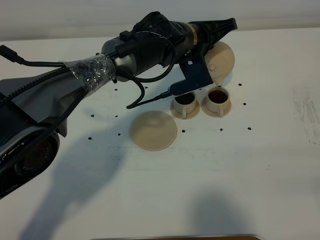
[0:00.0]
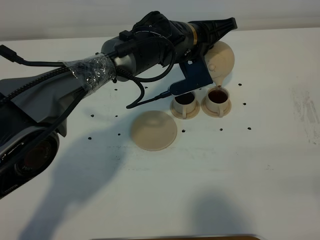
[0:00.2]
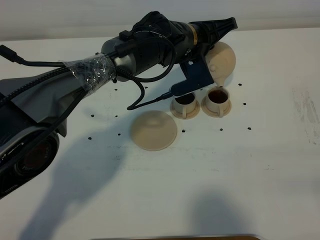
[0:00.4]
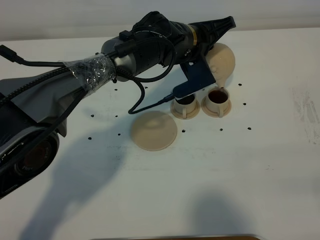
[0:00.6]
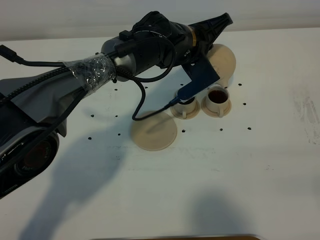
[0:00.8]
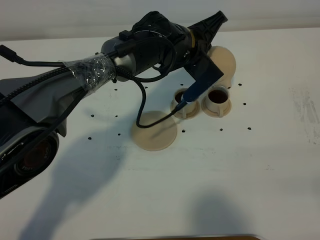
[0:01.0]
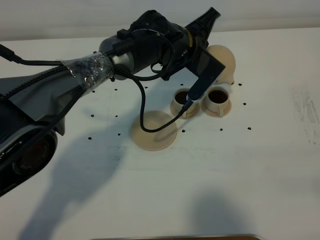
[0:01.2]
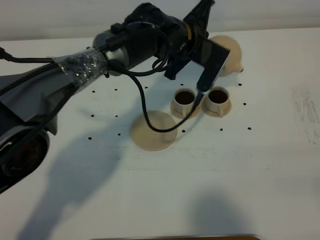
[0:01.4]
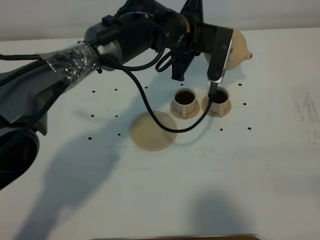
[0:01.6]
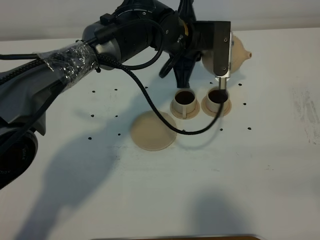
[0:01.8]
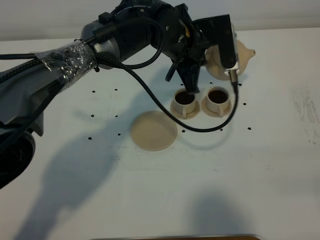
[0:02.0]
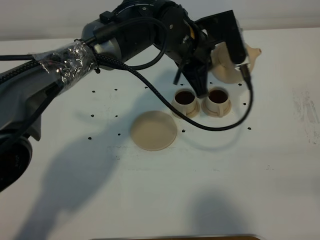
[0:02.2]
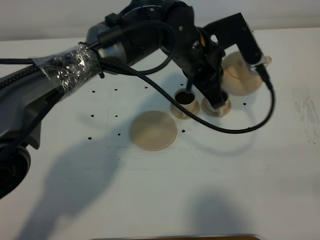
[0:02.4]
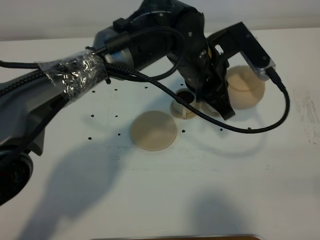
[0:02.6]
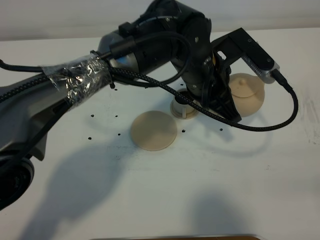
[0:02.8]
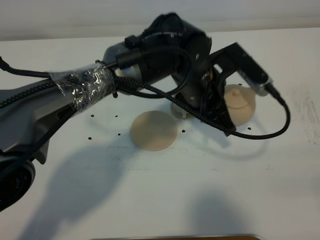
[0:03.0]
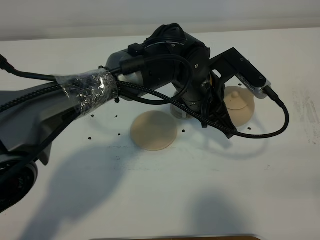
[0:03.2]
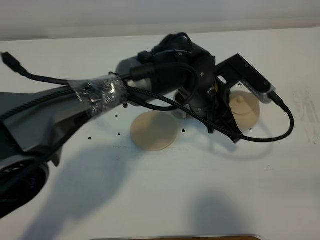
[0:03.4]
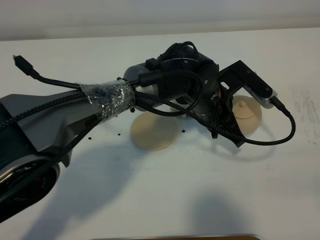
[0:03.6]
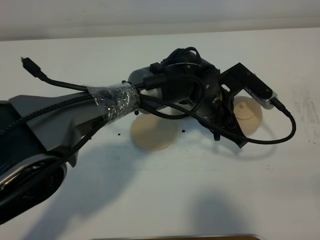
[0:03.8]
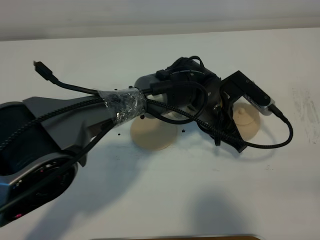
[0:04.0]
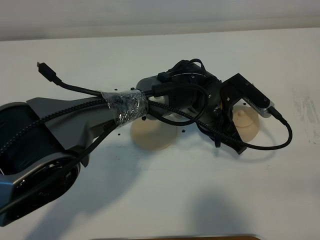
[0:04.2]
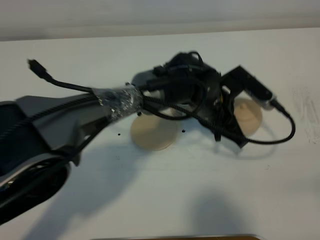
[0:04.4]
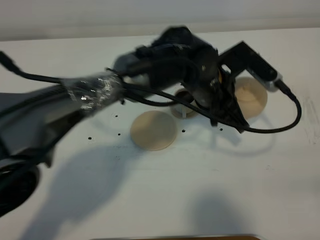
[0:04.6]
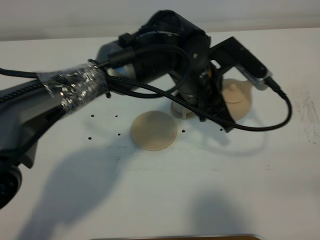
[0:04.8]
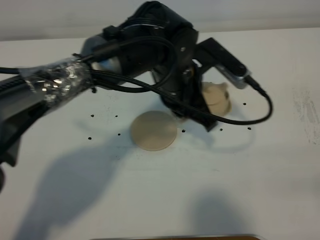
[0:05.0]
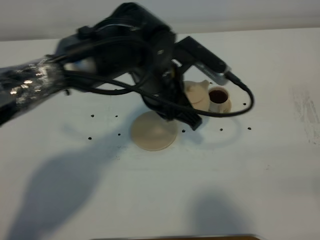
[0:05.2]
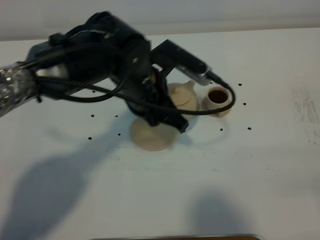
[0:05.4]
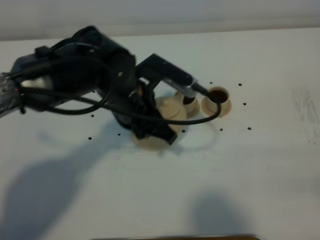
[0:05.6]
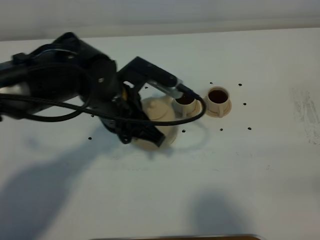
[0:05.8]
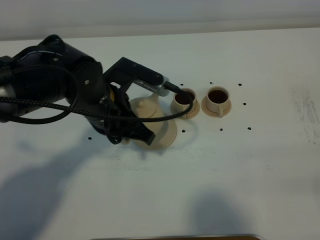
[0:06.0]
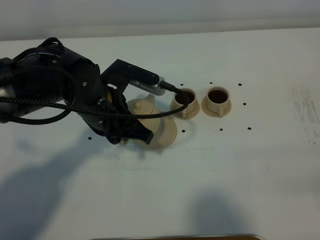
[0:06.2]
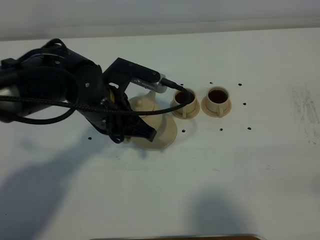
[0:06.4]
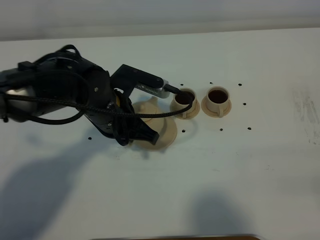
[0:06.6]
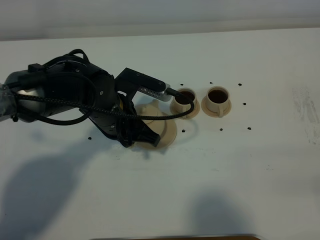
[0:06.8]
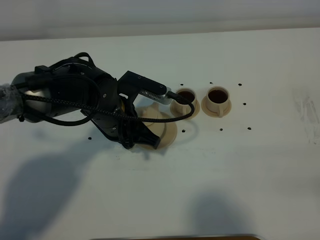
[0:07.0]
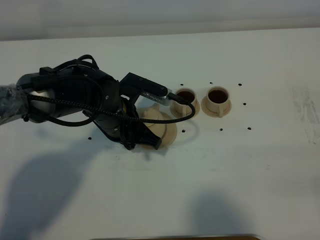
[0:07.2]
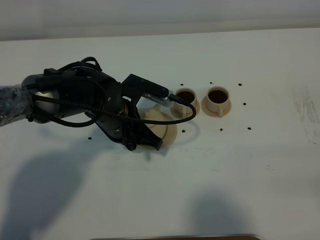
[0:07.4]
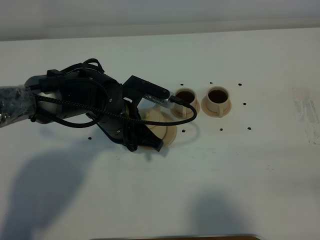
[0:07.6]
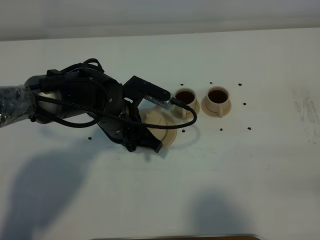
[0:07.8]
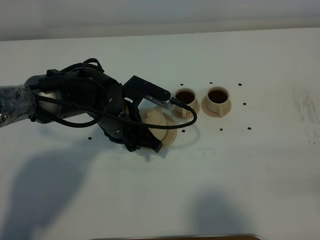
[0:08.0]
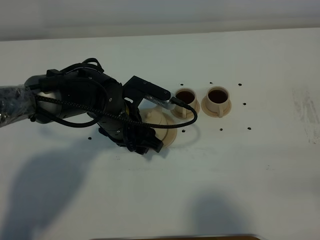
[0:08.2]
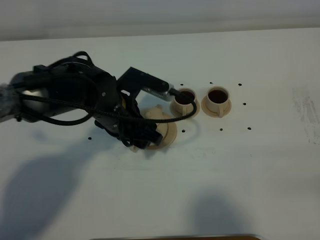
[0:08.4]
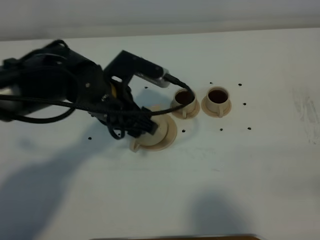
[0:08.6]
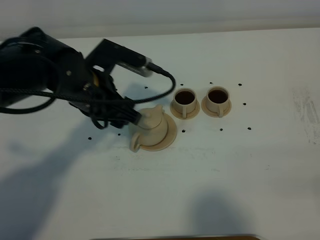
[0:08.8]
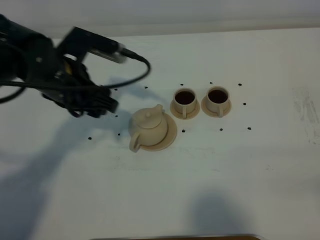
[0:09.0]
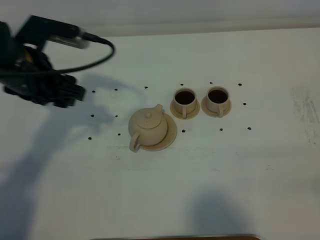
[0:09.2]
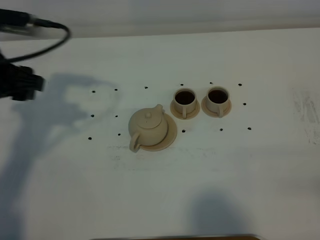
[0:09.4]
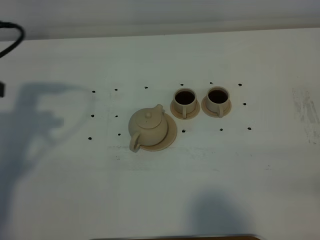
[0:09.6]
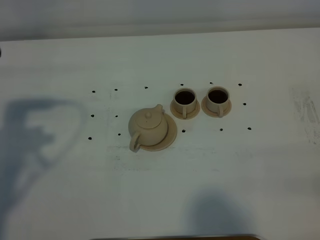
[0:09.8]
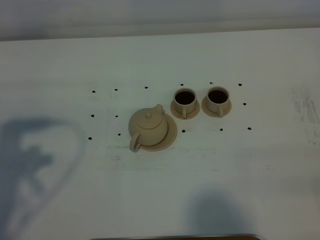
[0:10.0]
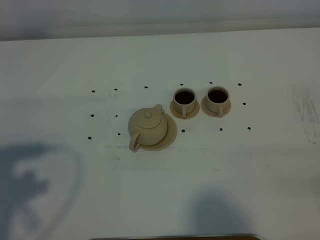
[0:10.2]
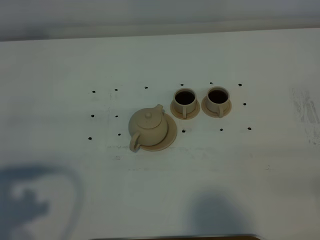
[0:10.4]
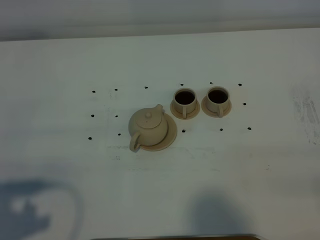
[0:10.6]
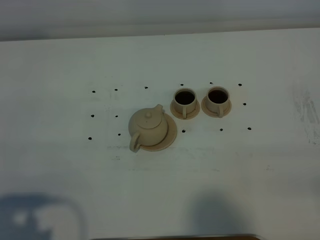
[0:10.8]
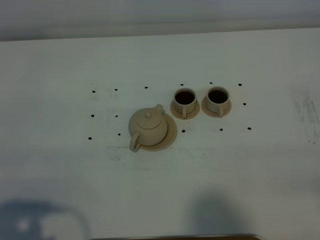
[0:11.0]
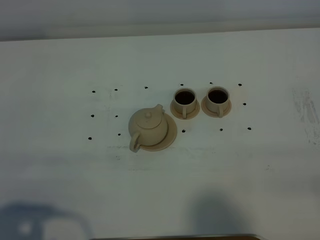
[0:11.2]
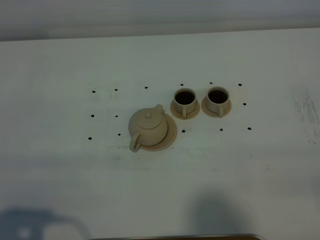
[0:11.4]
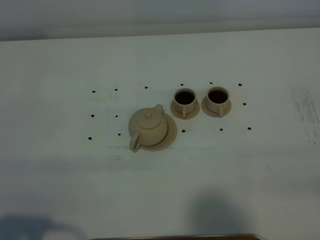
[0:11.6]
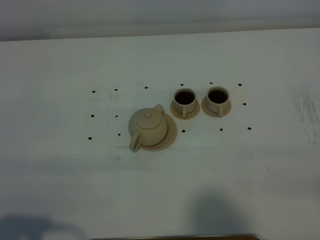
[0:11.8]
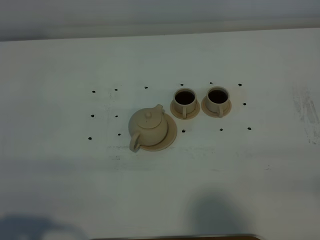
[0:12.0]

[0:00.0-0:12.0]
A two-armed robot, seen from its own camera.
Task of the whole recording: grasp the brown teapot and pour the tea into the two brown teacups one by one, put the brown teapot back in its original place.
0:01.6 to 0:03.0: The left gripper travels backward by some 10 cm.
0:04.4 to 0:06.0: The left gripper heads to the left, covering about 15 cm.
0:06.0 to 0:07.6: The left gripper shifts approximately 5 cm downward.
0:07.6 to 0:09.0: The left gripper moves upward and to the left, about 15 cm, and opens up.
0:09.0 to 0:10.4: The left gripper is displaced backward and to the left by about 30 cm.
0:10.4 to 0:12.0: The left gripper travels backward by some 5 cm.

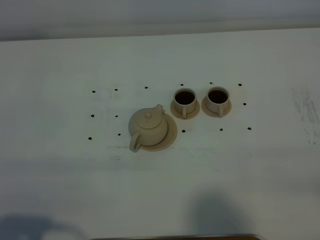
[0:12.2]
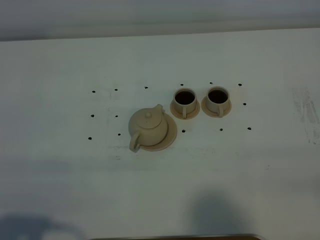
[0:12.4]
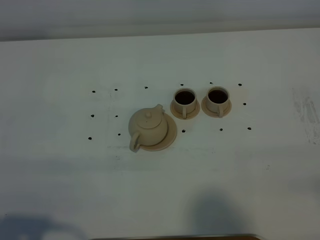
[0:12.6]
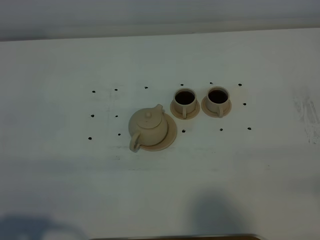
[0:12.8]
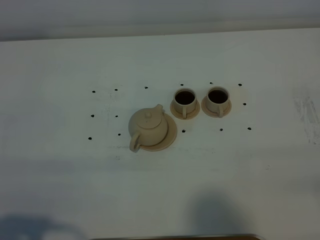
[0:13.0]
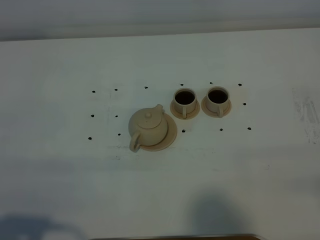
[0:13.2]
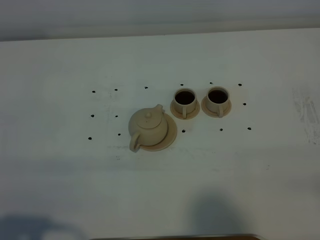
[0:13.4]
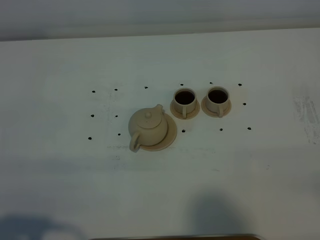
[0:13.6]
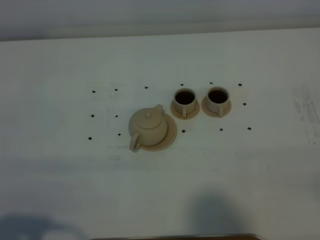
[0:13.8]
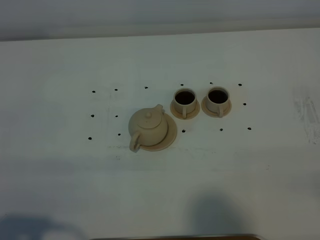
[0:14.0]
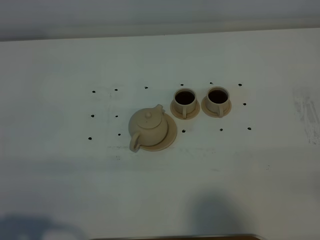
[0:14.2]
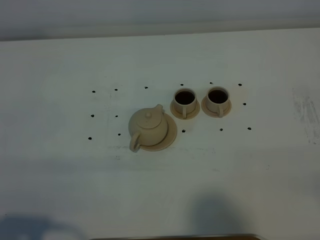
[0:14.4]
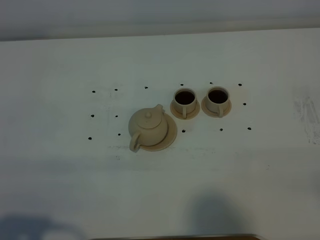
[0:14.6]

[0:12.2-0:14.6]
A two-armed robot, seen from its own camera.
Task of the whole recording: grasp the brown teapot and pour the tea into the two brown teacups one by one, put the brown teapot back in its original place.
0:12.2 to 0:13.4: Both grippers stay put.
0:13.4 to 0:14.6: The two grippers keep their place.

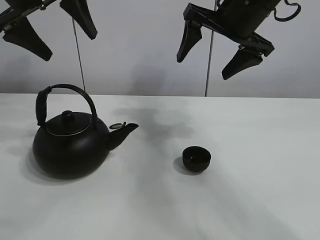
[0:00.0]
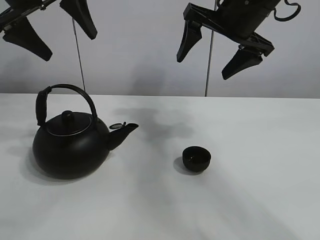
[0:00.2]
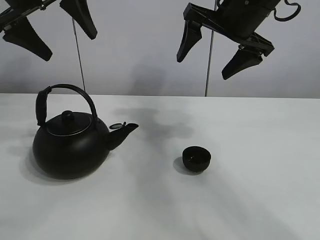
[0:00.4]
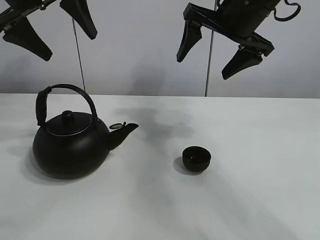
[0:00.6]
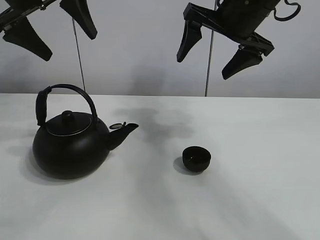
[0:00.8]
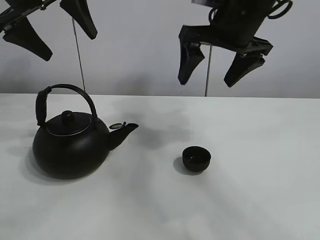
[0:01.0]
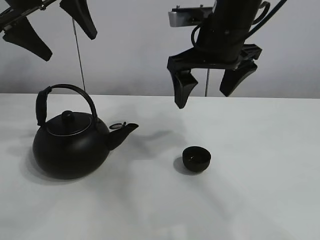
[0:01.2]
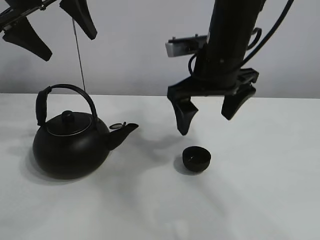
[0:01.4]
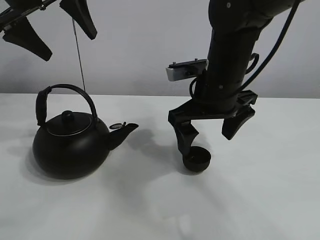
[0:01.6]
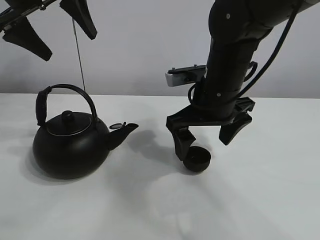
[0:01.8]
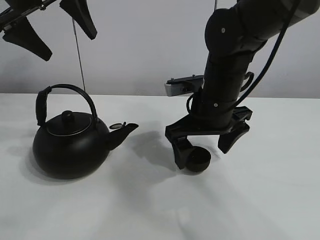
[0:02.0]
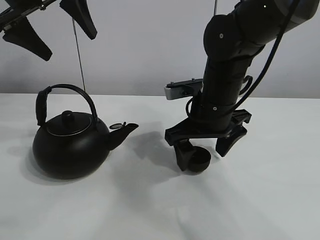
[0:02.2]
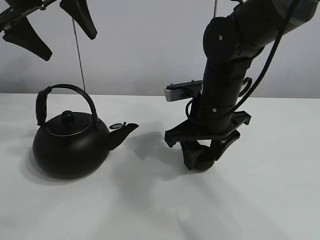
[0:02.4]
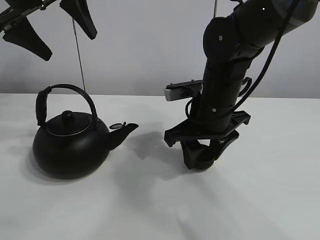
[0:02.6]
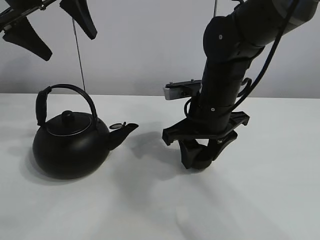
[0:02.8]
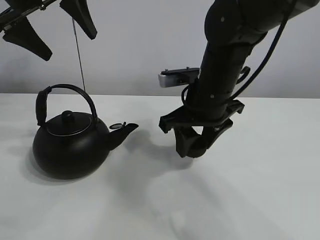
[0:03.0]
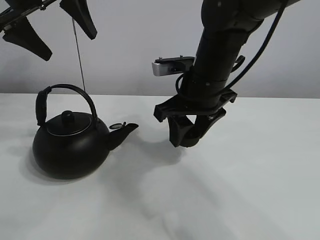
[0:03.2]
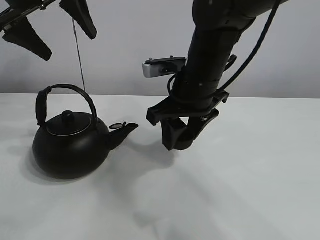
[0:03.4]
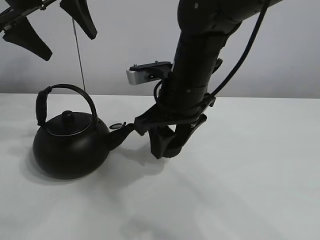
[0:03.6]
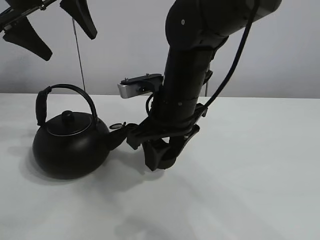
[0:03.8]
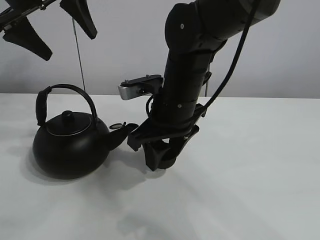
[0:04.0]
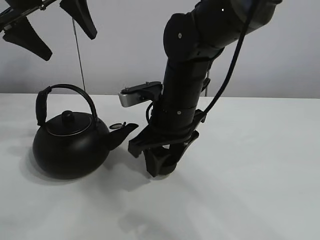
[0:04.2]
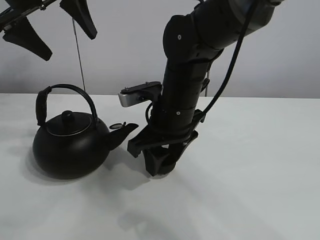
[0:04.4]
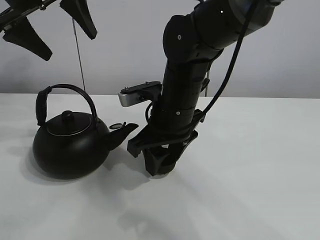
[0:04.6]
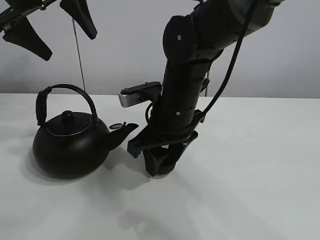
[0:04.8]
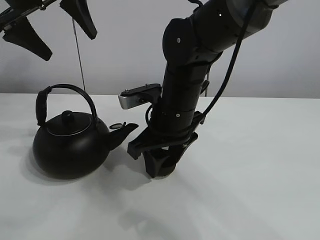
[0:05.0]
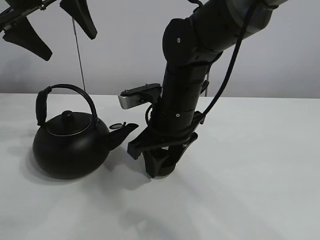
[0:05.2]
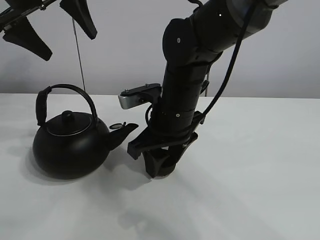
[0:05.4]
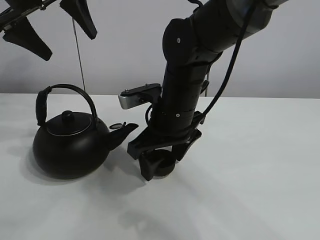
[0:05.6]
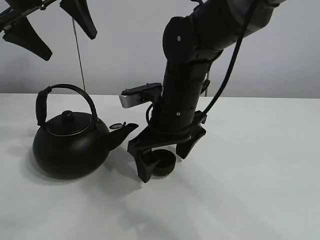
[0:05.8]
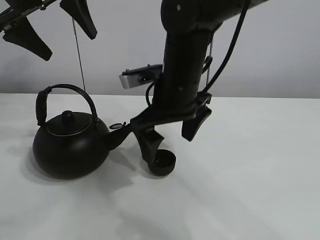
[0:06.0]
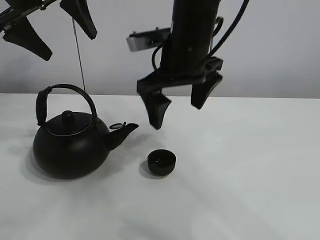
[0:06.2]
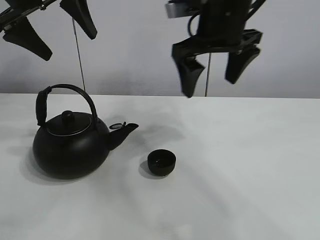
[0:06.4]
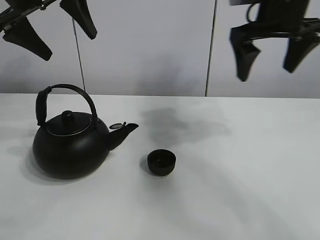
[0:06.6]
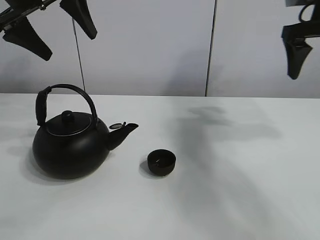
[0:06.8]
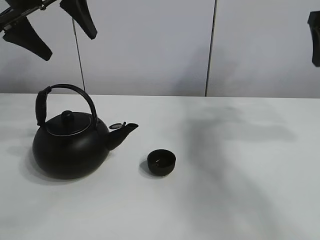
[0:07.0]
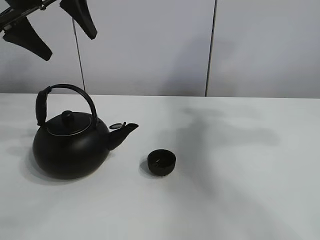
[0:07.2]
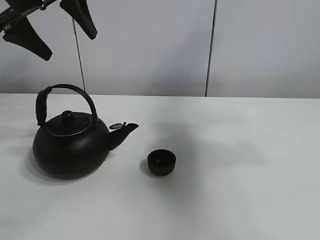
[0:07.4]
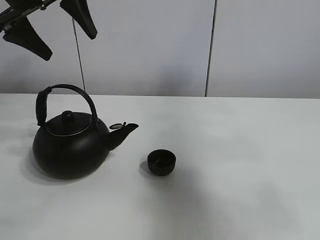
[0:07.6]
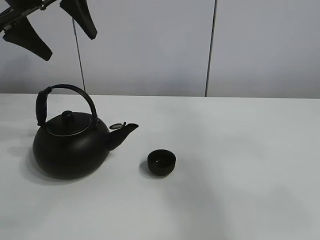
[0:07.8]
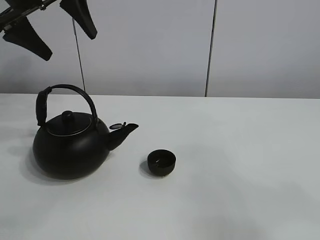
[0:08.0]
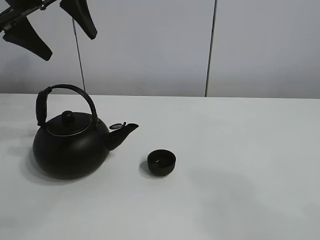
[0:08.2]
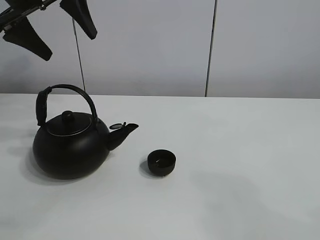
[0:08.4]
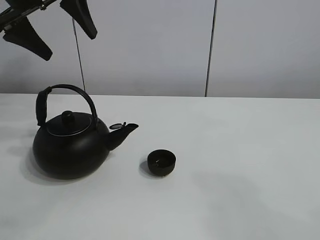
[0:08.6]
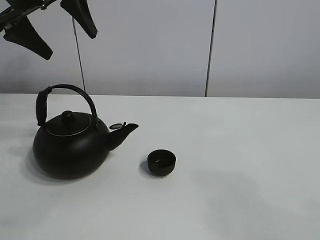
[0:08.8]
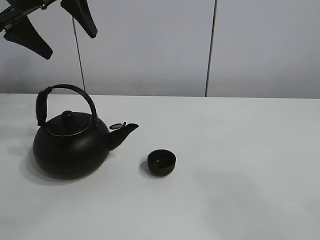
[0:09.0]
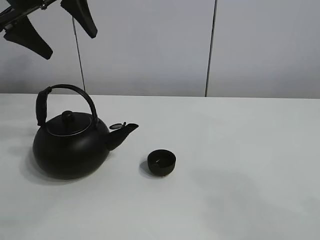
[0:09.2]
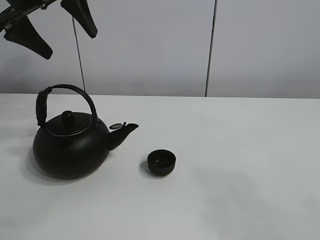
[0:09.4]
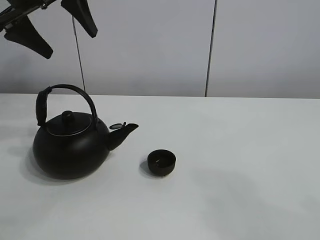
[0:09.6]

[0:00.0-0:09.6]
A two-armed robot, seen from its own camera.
Task of the whole recording: pour tea into the teacup.
Step, 0:00.0 to 0:02.8: Pick up the teacup with the right gripper.
Step, 0:03.0 to 0:05.6: Place the teacup in the center of view with the right gripper.
0:01.6 to 0:03.2: The right gripper closes its fingers.
0:03.2 to 0:04.8: The right gripper ends up some 5 cm from where it was.
0:04.8 to 0:06.4: The right gripper travels upward and to the right by about 15 cm, and opens its fingers.
0:06.4 to 0:08.0: The right gripper moves backward and to the right, roughly 40 cm.
